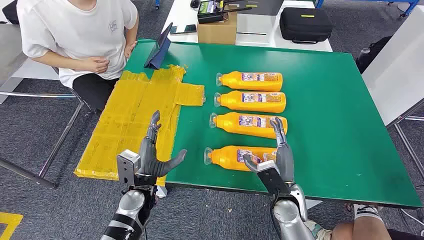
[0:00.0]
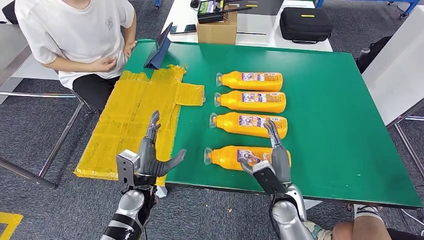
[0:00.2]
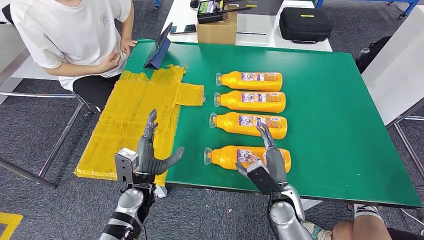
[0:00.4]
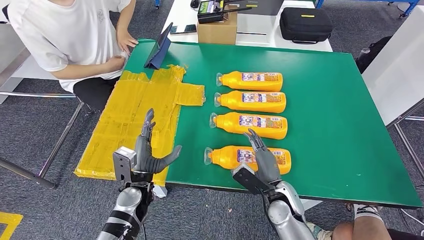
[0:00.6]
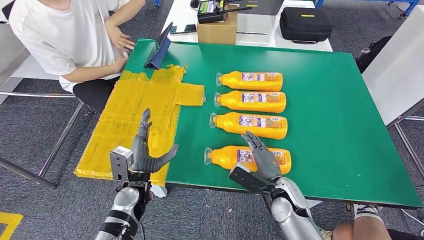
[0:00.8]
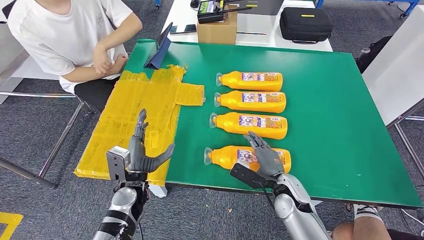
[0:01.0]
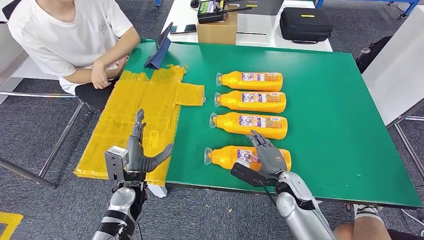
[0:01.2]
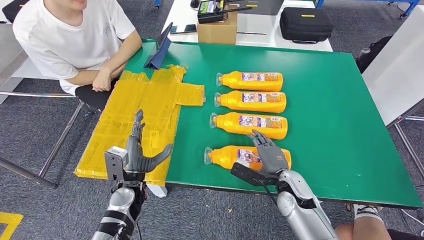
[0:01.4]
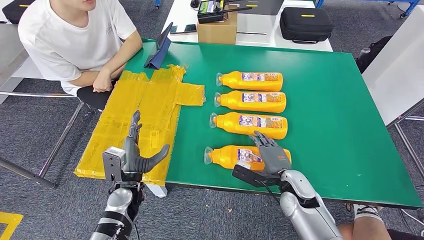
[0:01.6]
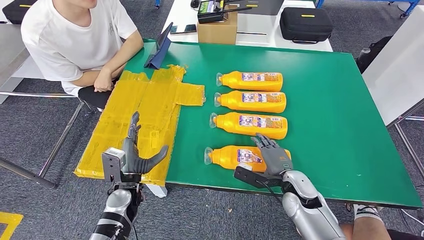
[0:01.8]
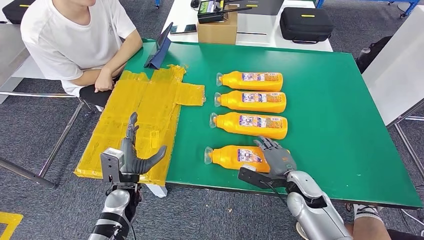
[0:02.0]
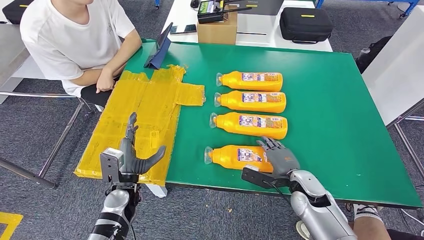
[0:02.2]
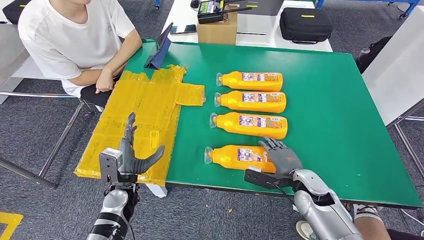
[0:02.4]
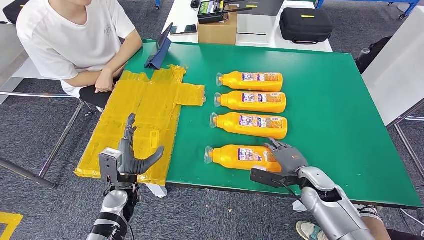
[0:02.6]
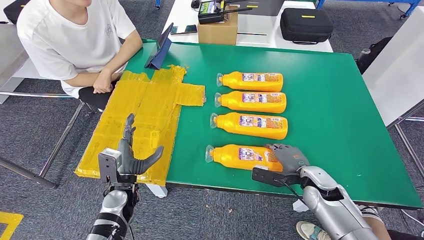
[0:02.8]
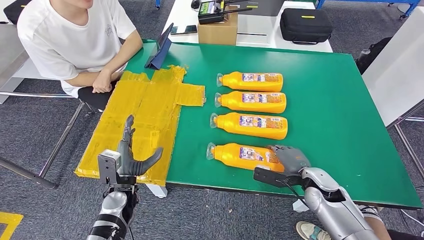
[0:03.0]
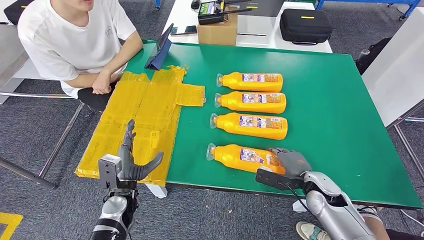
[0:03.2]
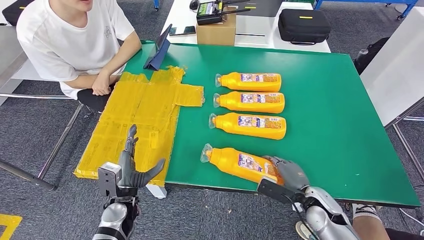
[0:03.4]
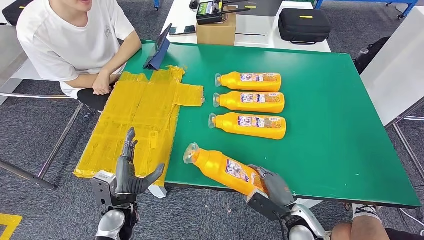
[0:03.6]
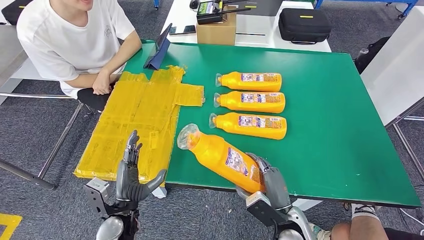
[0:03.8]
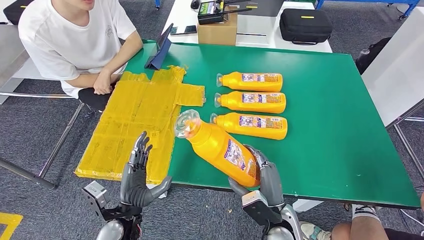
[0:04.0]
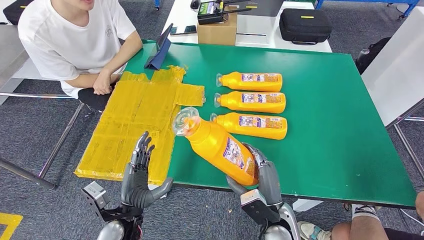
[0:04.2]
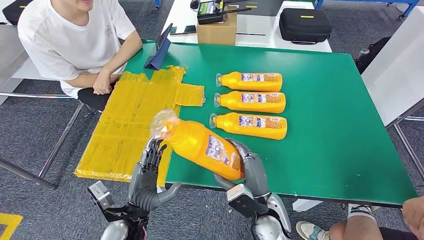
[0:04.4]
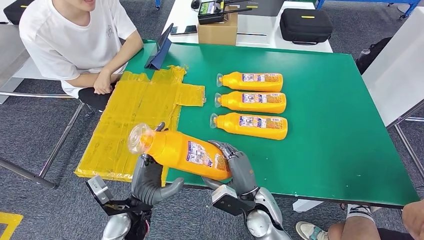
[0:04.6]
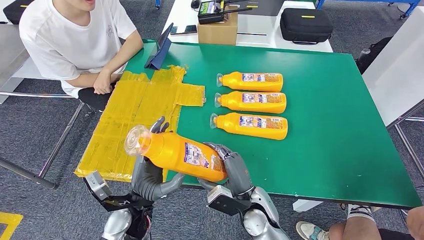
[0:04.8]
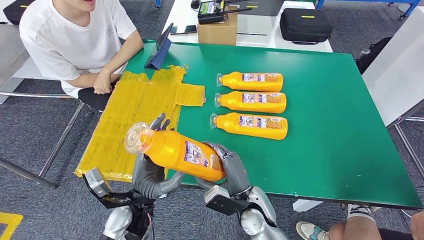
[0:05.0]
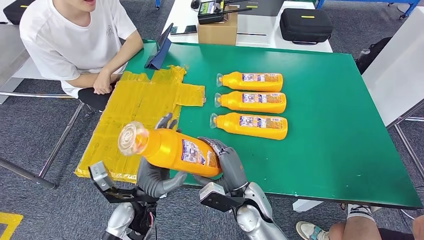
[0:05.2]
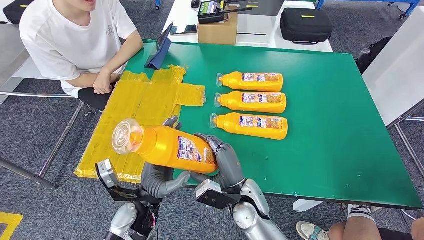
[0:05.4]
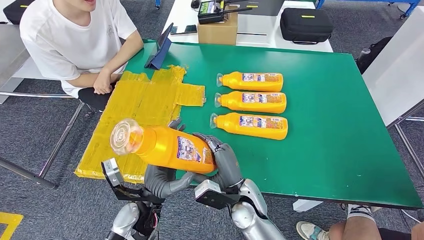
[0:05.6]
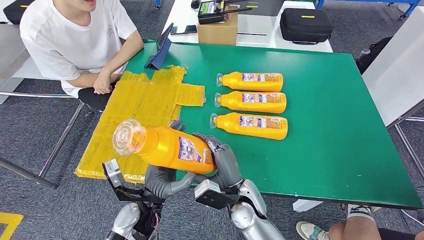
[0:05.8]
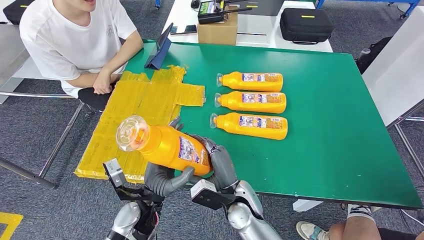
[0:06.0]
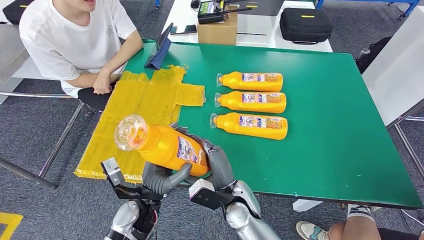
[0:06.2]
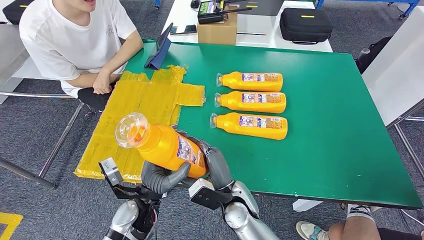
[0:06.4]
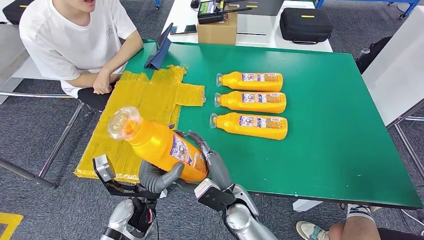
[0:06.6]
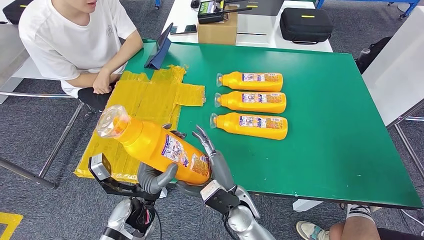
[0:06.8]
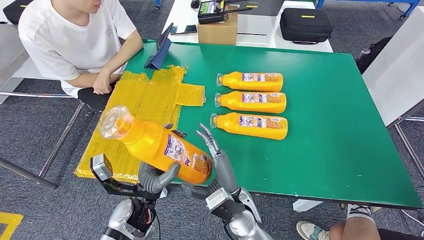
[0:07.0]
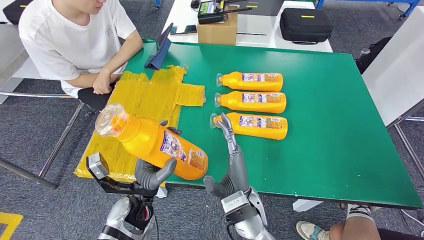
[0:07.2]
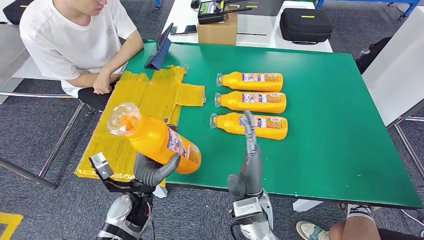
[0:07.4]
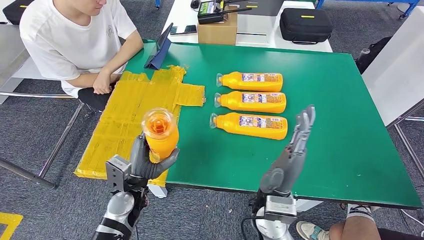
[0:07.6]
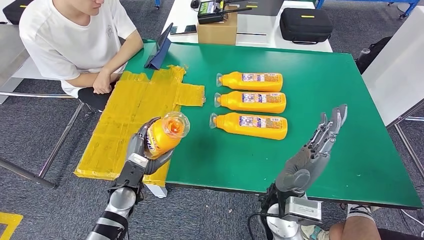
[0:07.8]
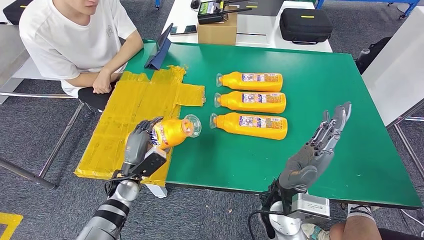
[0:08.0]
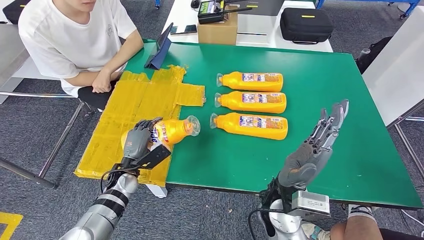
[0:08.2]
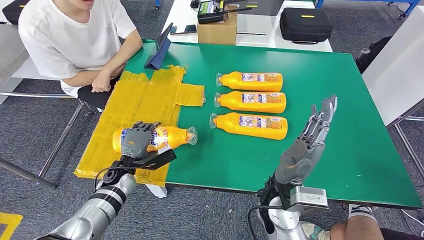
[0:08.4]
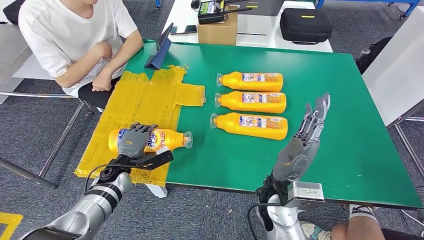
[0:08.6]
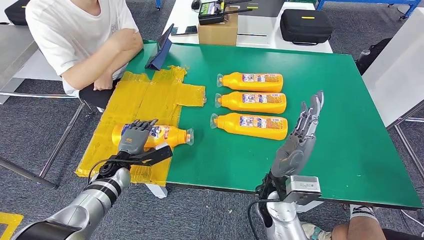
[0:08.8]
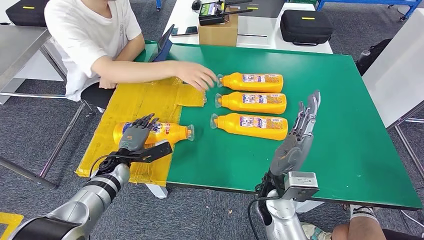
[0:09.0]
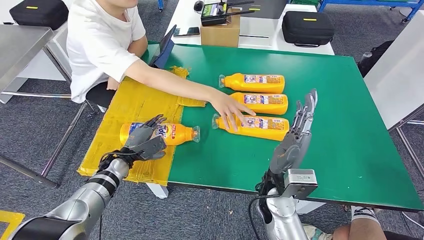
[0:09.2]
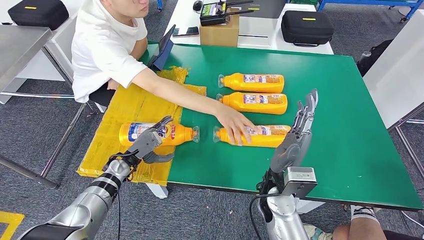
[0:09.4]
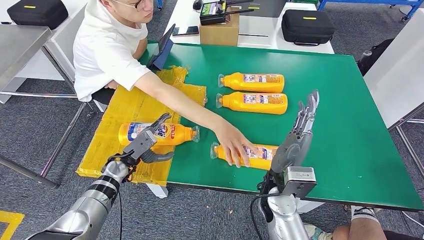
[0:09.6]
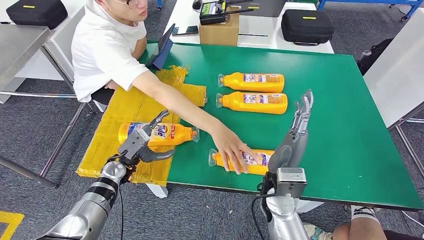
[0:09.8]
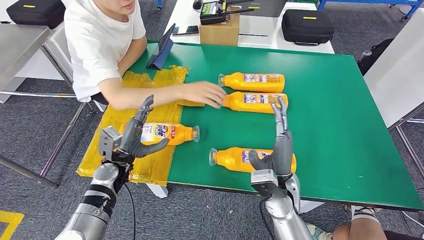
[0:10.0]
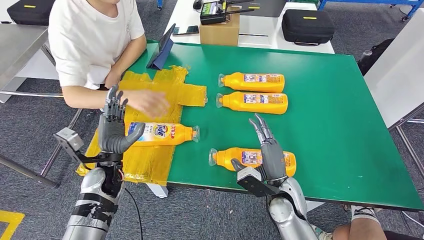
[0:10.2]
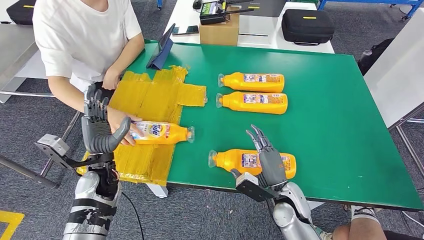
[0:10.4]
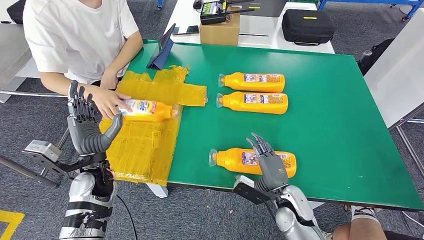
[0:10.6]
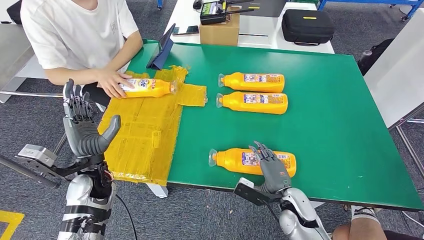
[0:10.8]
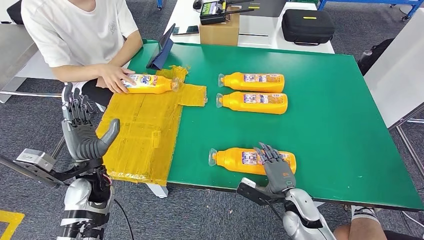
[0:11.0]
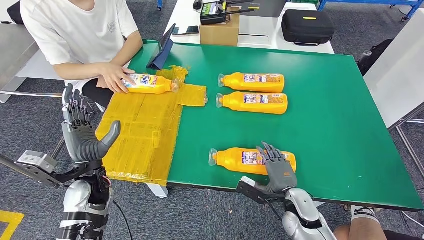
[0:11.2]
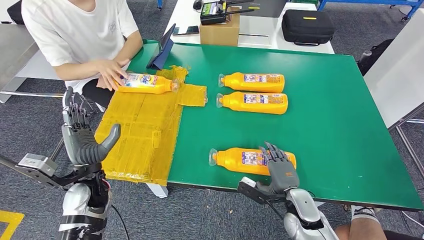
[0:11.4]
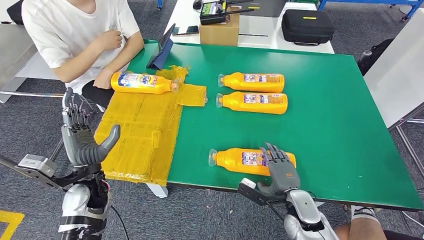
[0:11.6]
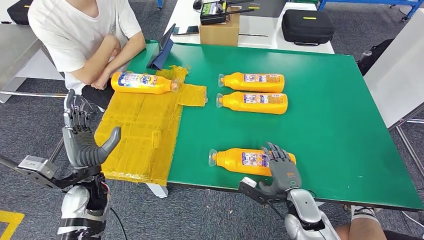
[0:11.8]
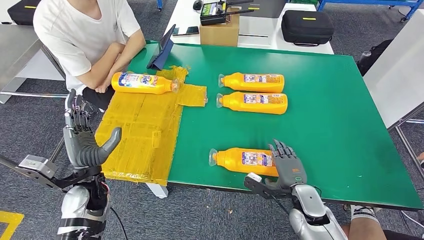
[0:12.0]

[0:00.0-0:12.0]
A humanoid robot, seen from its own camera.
Step, 0:00.0 to 0:05.8: Take the bottle from the table.
Step, 0:06.0 to 0:10.2: Flip the bottle to face forward.
0:01.6 to 0:03.0: The right hand heads to the right, covering some 10 cm.
0:03.0 to 0:04.4: The right hand moves to the left and backward, approximately 15 cm. Meanwhile the left hand travels backward by about 10 cm.
0:04.4 to 0:06.0: The right hand is displaced to the left by approximately 10 cm. Meanwhile the left hand shifts by roughly 5 cm.
0:06.0 to 0:07.6: The right hand shifts approximately 5 cm upward, while the left hand moves roughly 5 cm.

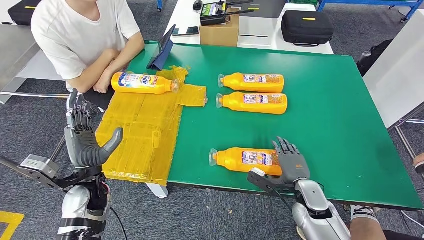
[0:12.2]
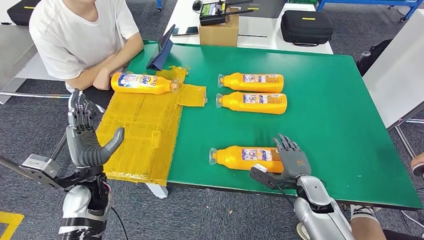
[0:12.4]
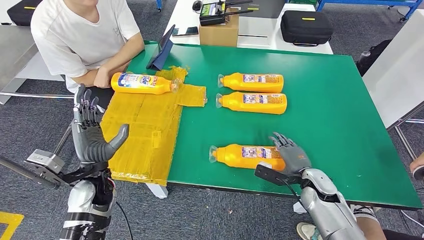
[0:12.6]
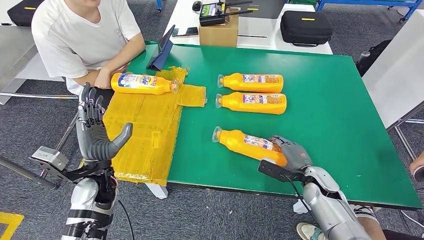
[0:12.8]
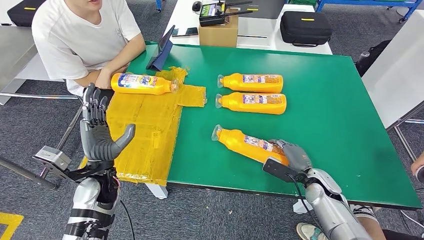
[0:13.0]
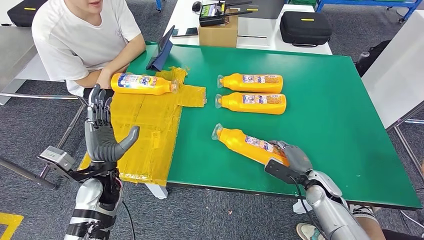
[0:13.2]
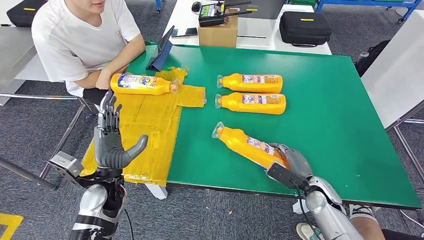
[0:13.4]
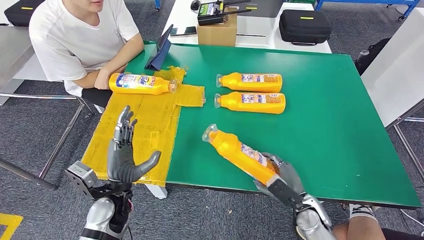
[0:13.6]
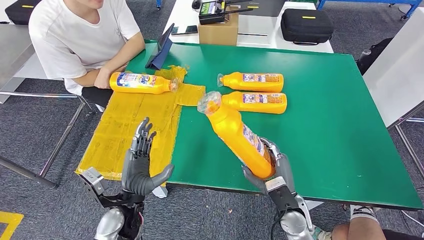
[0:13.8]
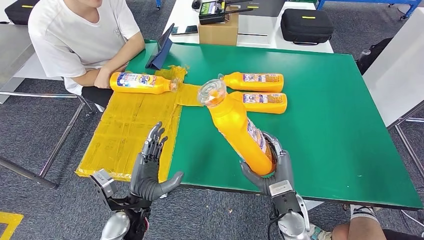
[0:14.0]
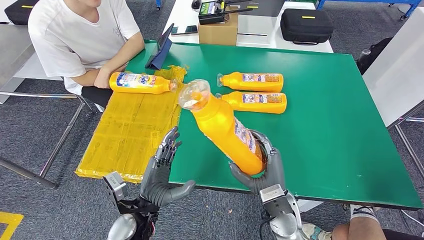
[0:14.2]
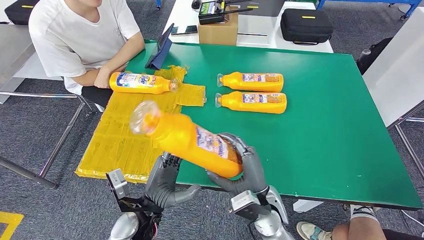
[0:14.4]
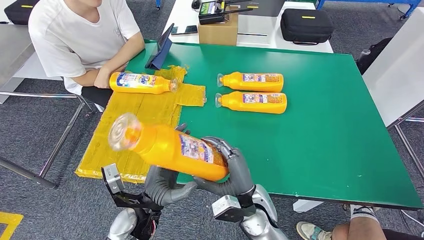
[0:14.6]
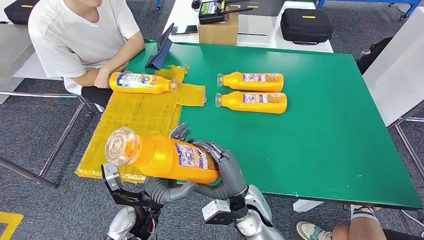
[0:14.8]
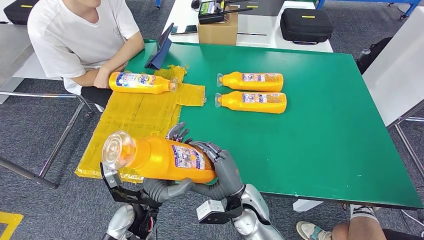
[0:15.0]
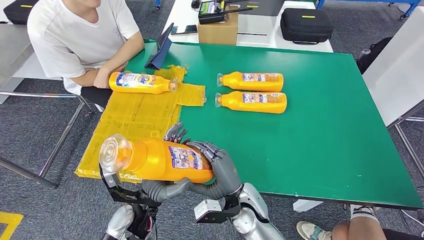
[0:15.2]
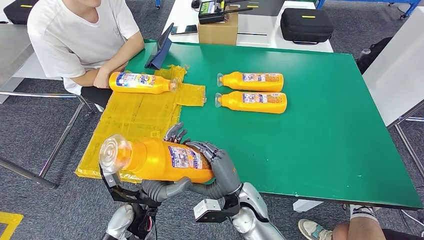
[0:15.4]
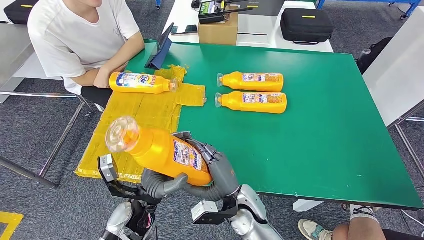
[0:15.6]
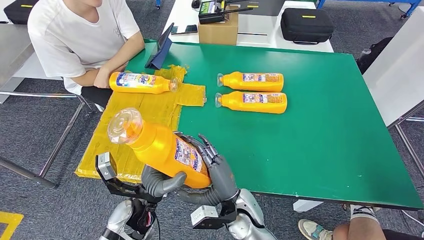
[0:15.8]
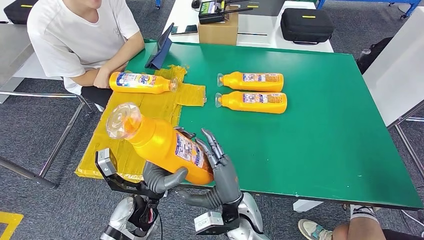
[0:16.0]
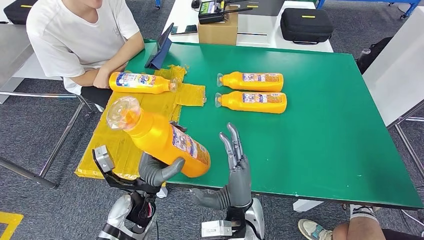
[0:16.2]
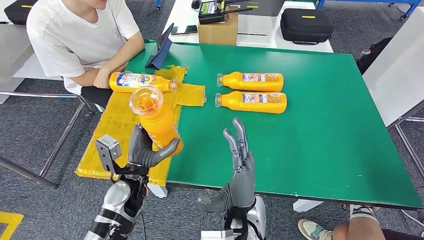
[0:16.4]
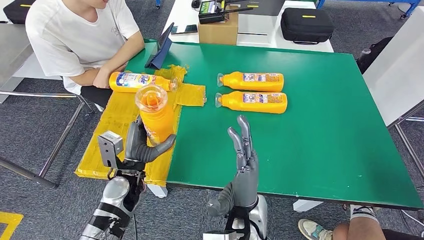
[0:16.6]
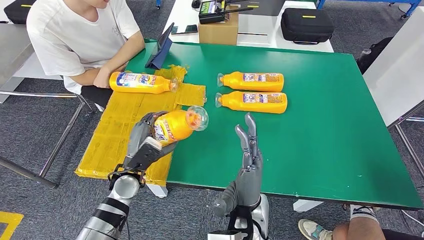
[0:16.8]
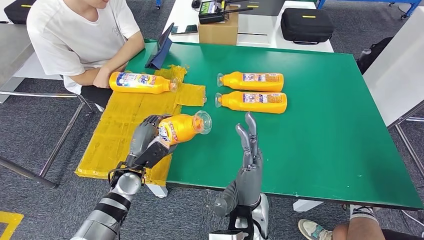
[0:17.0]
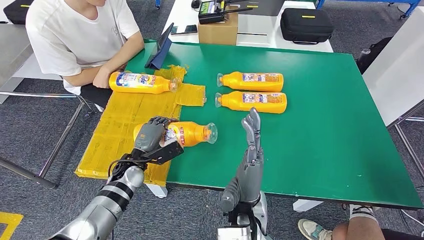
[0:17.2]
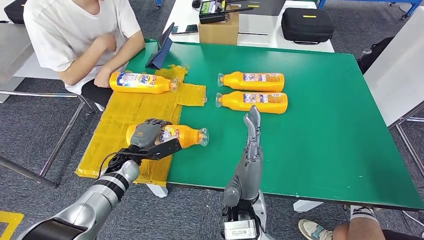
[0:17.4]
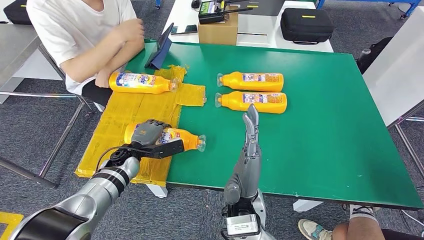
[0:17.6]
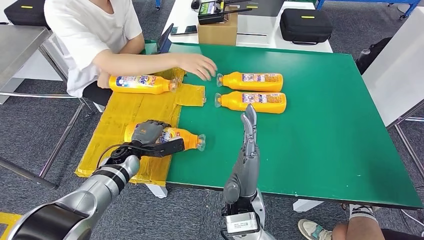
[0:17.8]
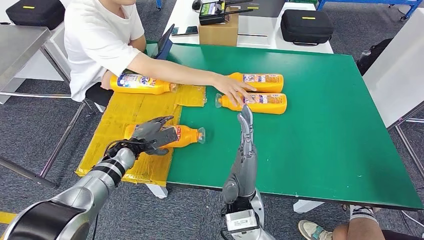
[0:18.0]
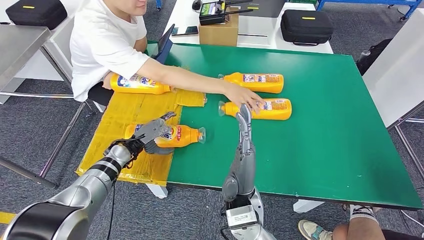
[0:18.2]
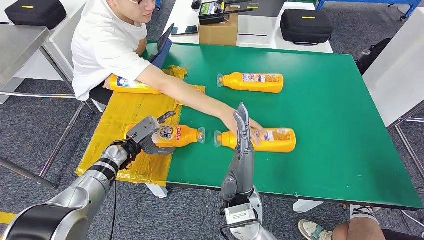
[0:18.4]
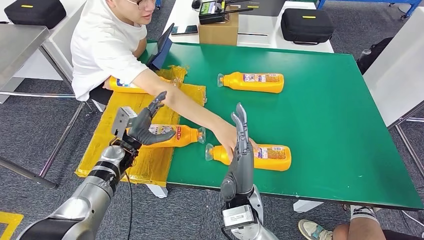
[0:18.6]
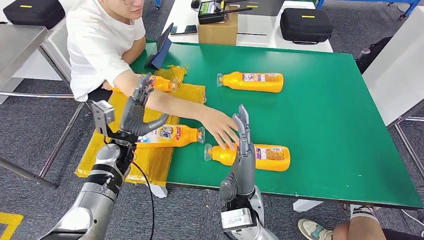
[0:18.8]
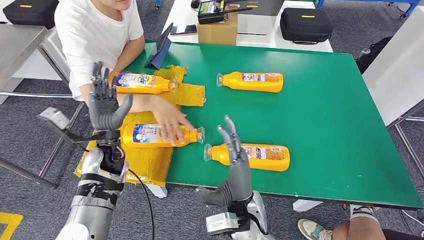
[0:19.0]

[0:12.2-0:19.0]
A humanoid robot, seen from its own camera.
Step, 0:12.2 to 0:16.0: Pick up the bottle from the table.
0:16.2 to 0:17.6: The left hand moves forward, to the left and downward, approximately 20 cm.
